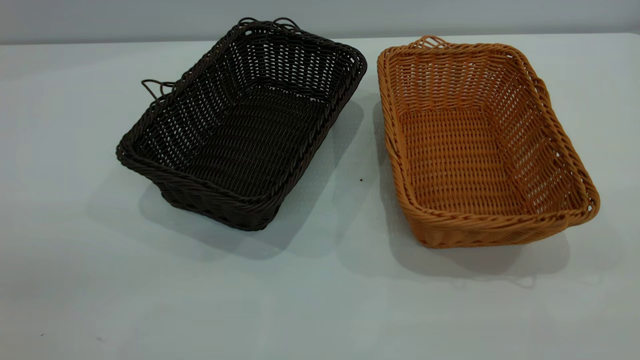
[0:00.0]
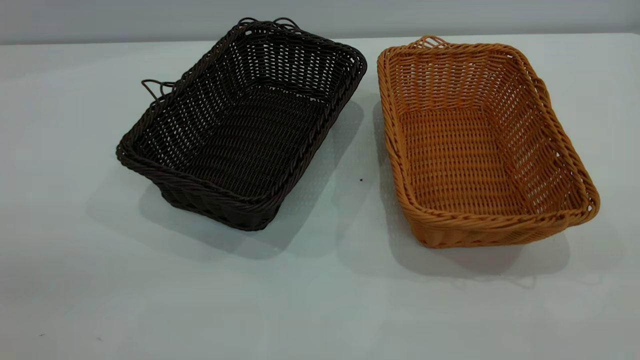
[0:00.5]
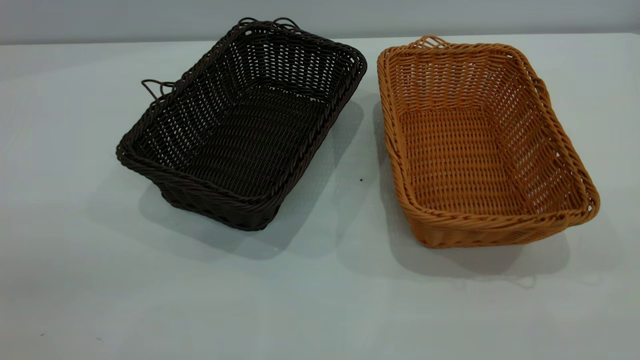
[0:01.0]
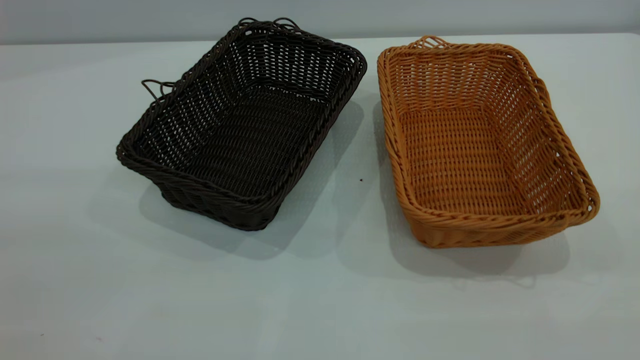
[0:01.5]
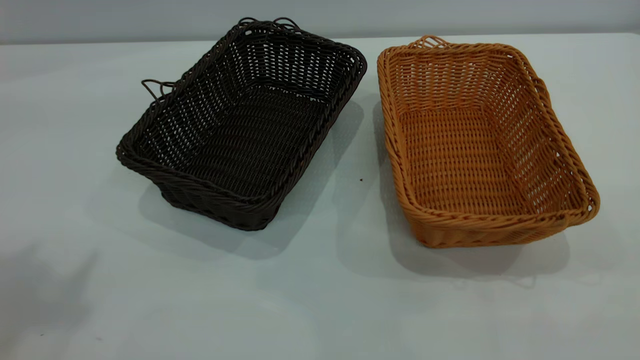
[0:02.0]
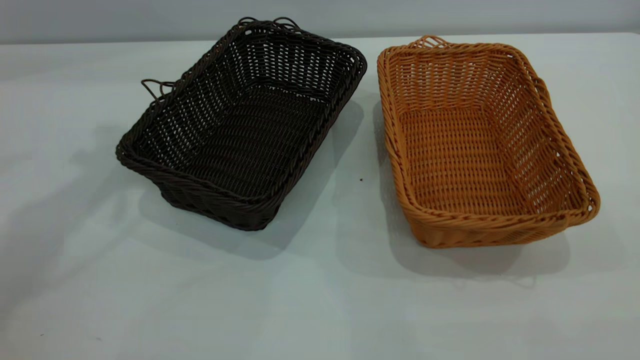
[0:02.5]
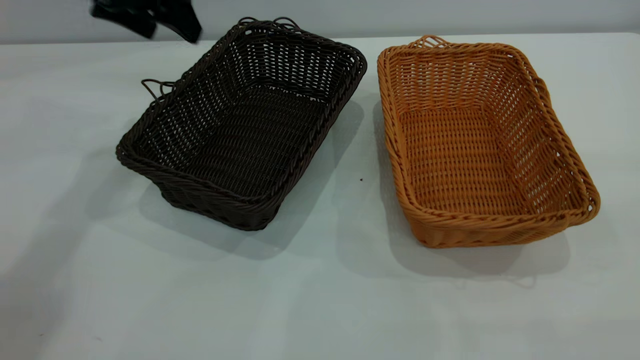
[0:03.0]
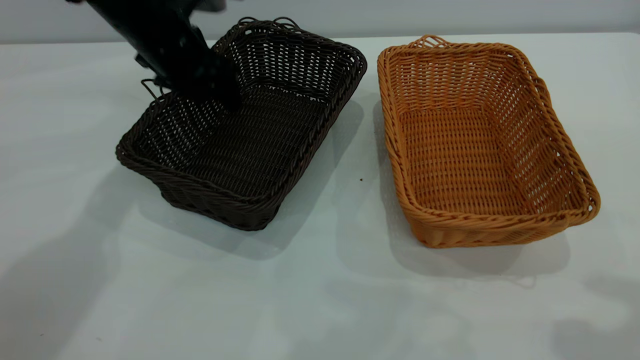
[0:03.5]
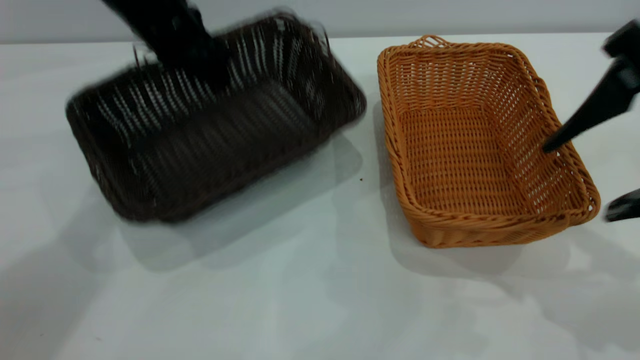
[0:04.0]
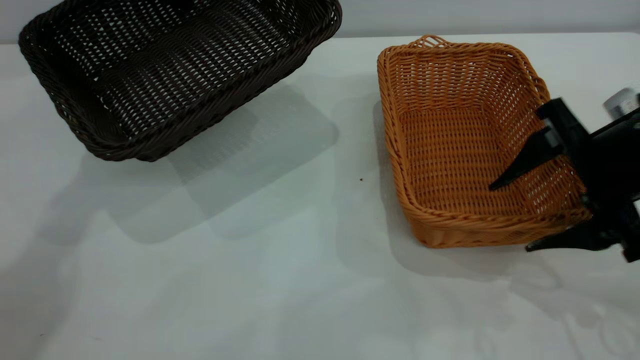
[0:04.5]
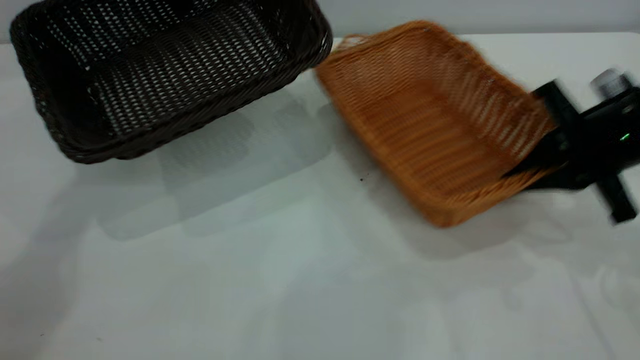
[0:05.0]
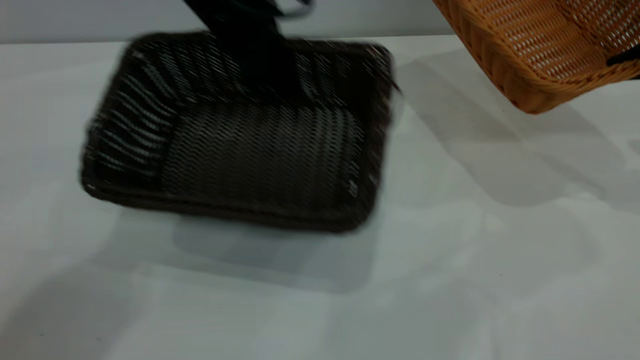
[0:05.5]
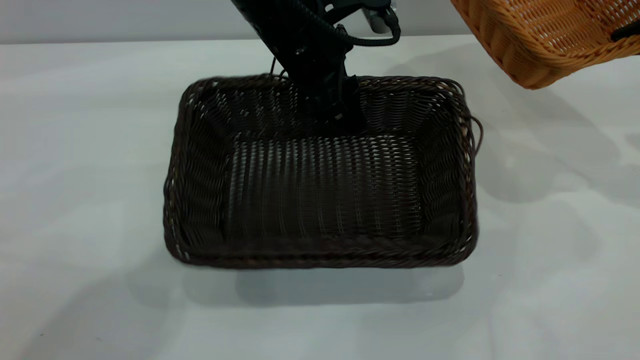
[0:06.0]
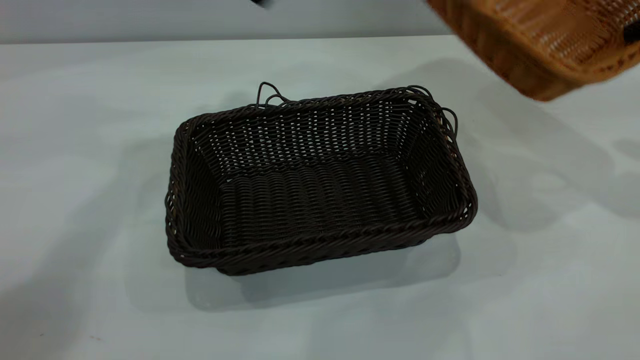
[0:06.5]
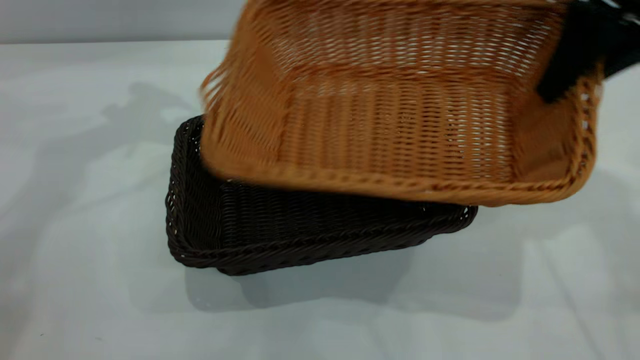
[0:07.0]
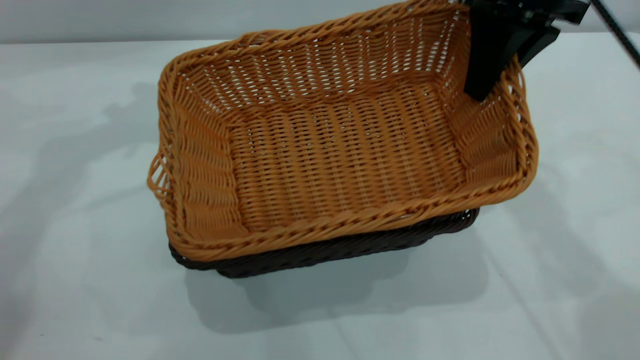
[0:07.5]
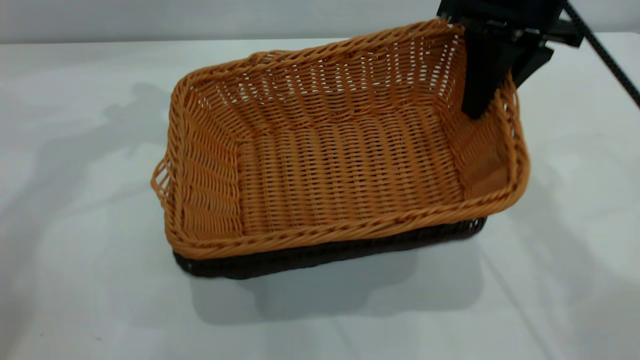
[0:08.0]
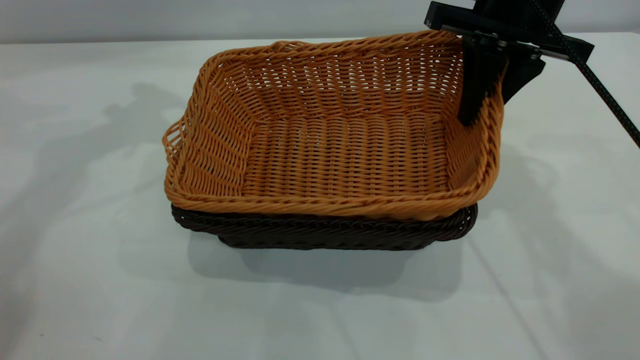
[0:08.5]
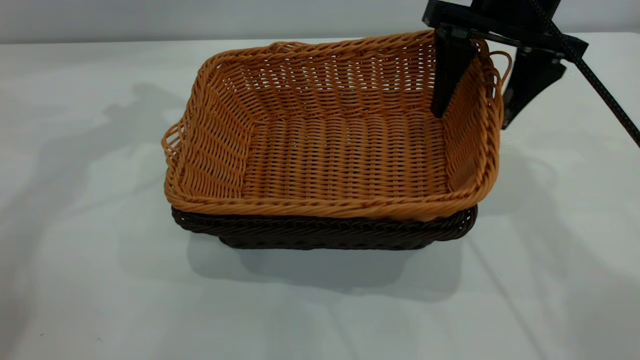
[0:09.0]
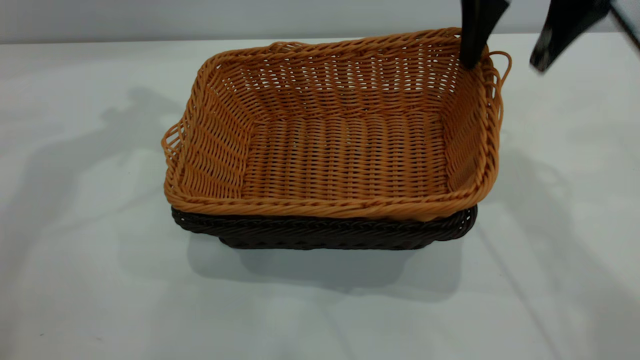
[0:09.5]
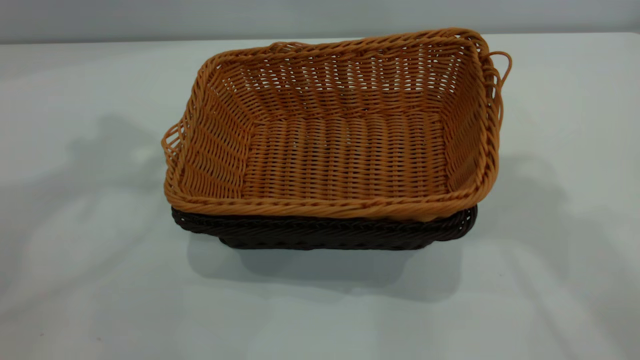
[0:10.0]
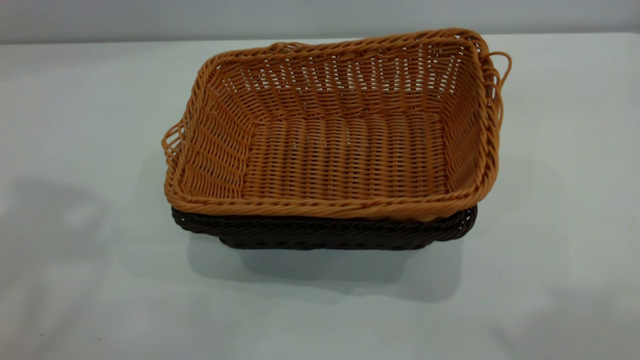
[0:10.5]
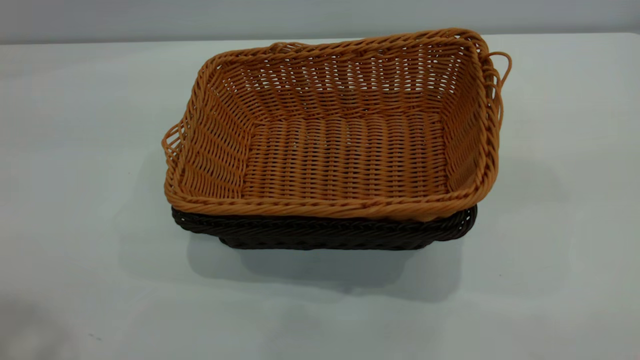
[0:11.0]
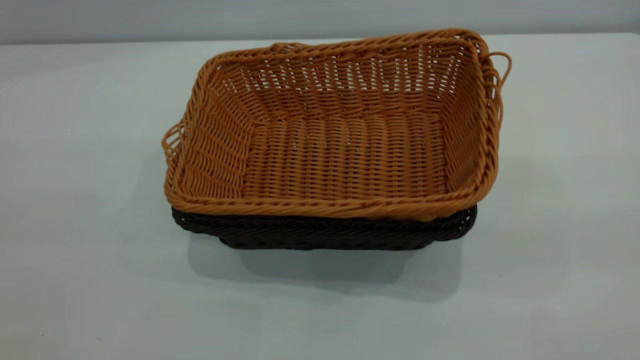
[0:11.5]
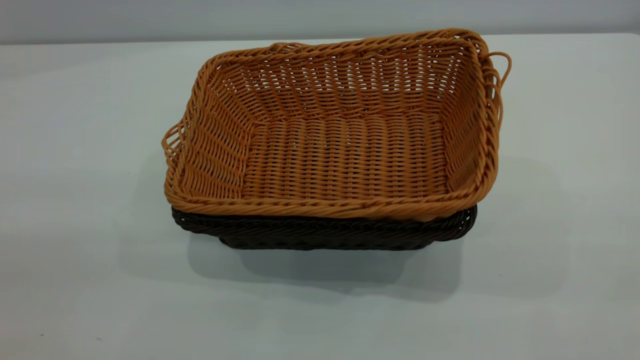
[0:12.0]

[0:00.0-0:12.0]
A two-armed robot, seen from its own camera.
Task of the whole recording: the left gripper grasp the black basket and place it in the center of the table, the right gripper grasp the brown basket and place it inside the black one.
Step, 0:00.0 to 0:04.5: Pick up the light basket with the right gripper.
Step, 0:05.5 to 0:06.0: Move the dark basket to the center of view.
Step, 0:06.5 to 0:09.5: Place the light basket on the dark basket.
0:02.0 to 0:04.0: Both grippers move forward and downward, approximately 30 cm. The left gripper closes up.
0:04.0 to 0:06.0: The right gripper heads to the right and forward, covering approximately 20 cm, and closes. The left gripper moves to the right and backward, some 15 cm, and opens its fingers.
0:06.0 to 0:08.0: The left gripper shifts about 25 cm to the left and upward, while the right gripper shifts roughly 20 cm to the left.
0:08.0 to 0:10.0: The left gripper goes roughly 20 cm upward and backward, while the right gripper heads upward, covering about 25 cm, and opens up.
